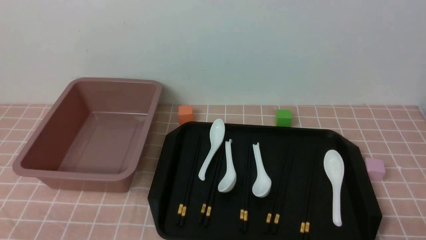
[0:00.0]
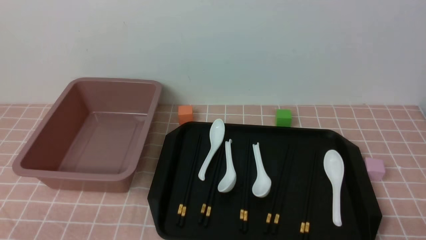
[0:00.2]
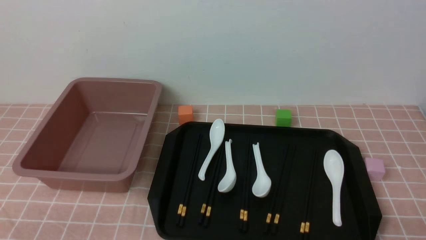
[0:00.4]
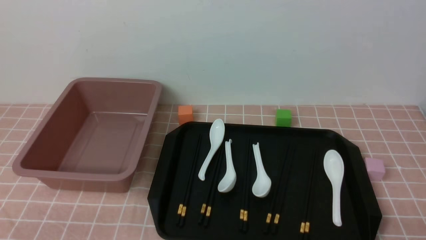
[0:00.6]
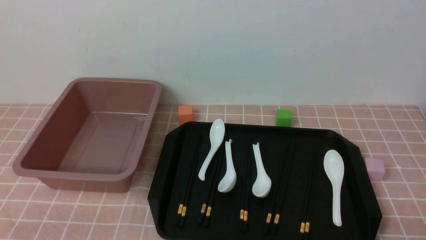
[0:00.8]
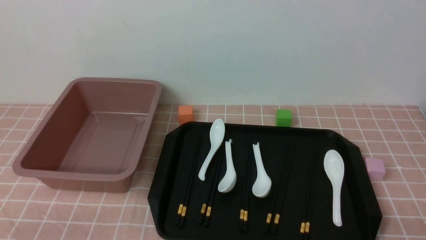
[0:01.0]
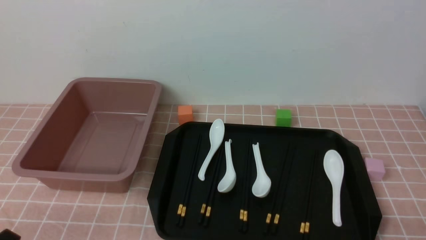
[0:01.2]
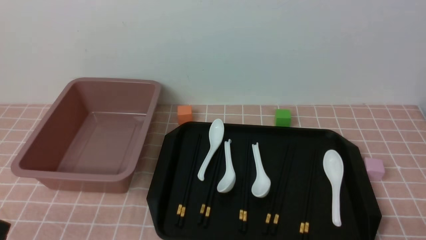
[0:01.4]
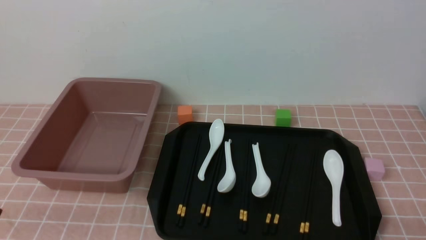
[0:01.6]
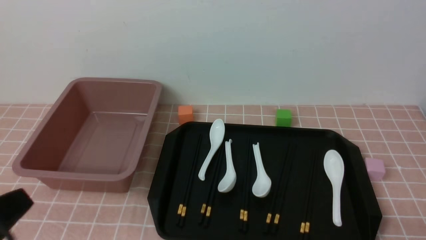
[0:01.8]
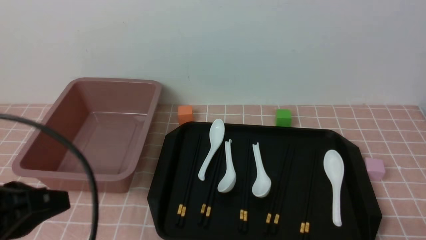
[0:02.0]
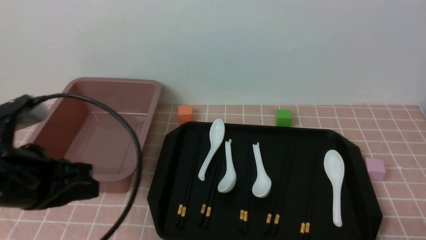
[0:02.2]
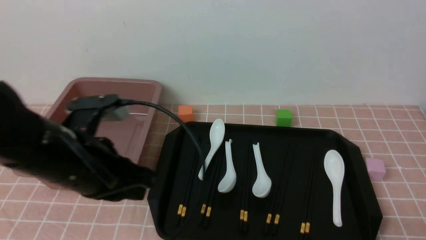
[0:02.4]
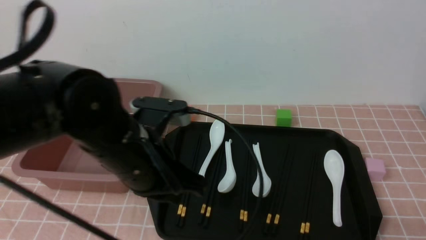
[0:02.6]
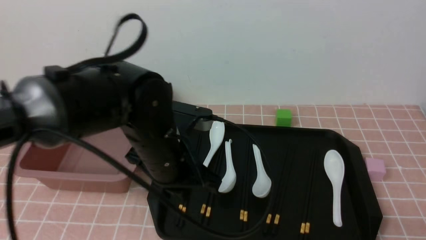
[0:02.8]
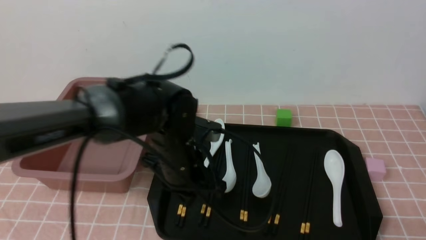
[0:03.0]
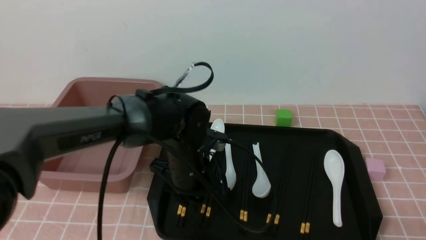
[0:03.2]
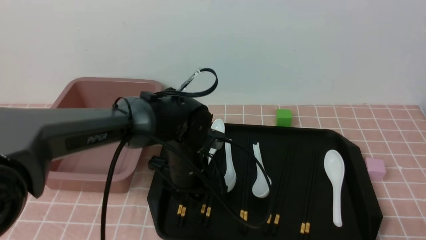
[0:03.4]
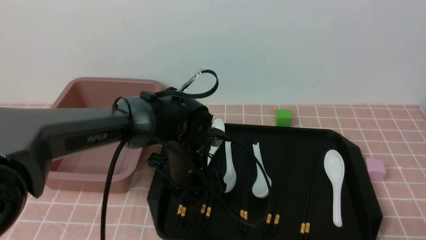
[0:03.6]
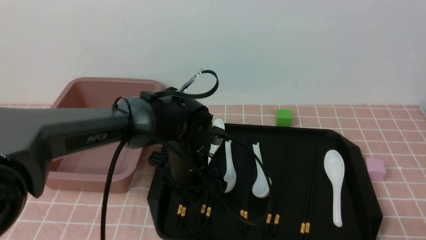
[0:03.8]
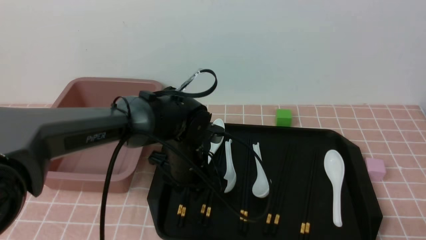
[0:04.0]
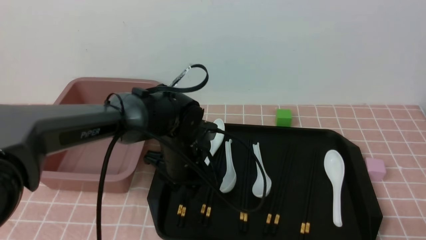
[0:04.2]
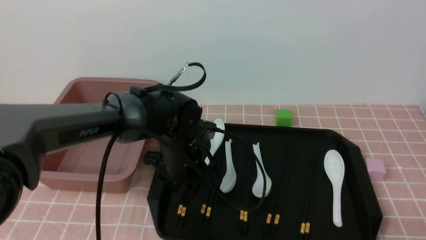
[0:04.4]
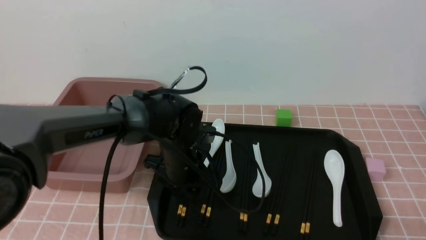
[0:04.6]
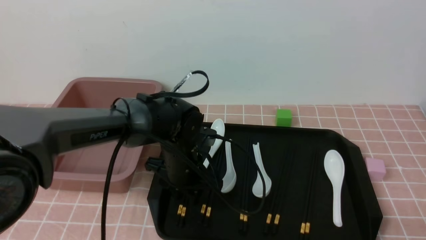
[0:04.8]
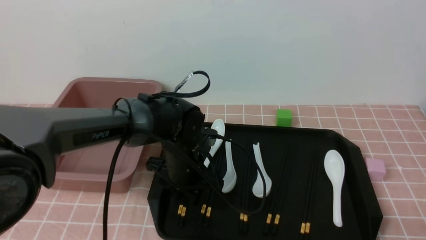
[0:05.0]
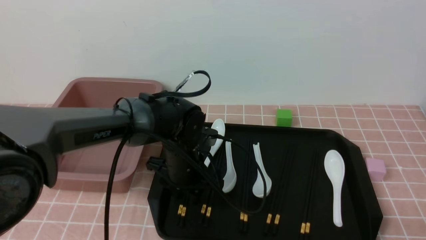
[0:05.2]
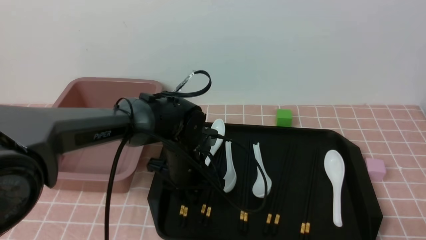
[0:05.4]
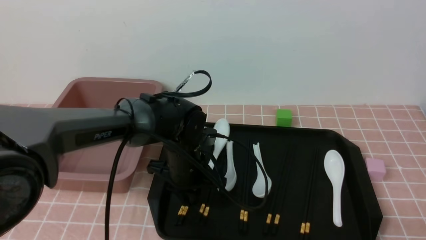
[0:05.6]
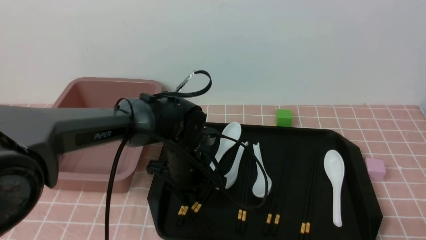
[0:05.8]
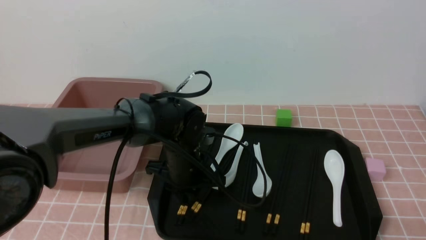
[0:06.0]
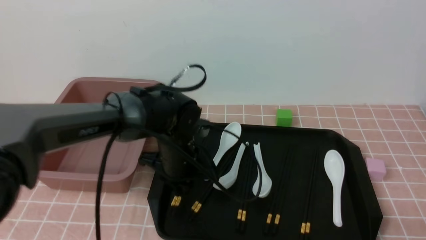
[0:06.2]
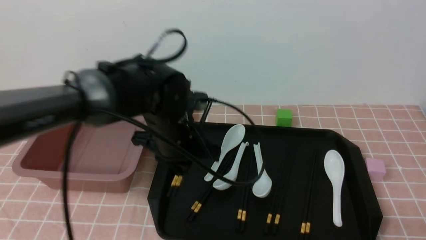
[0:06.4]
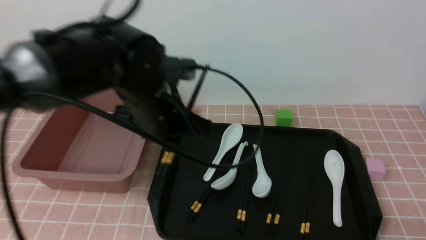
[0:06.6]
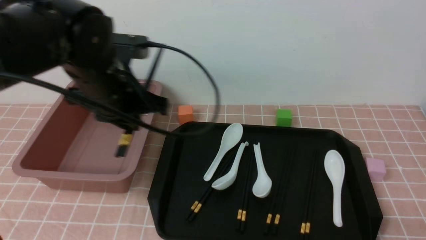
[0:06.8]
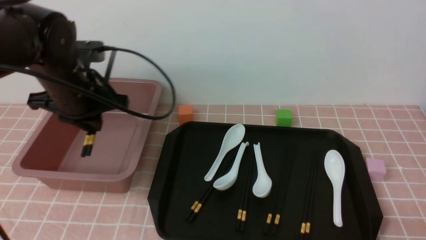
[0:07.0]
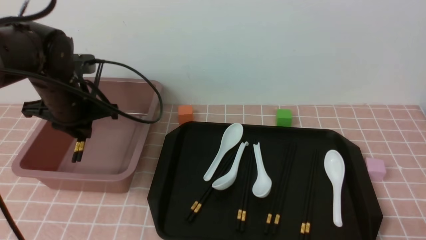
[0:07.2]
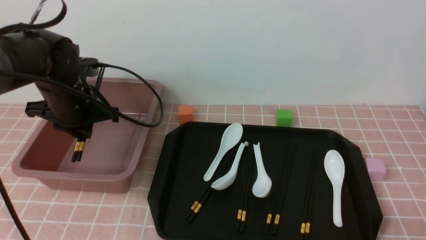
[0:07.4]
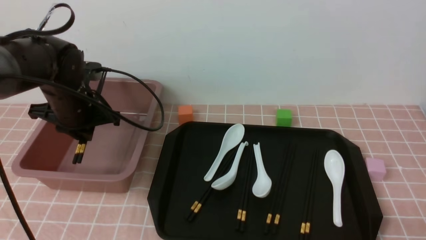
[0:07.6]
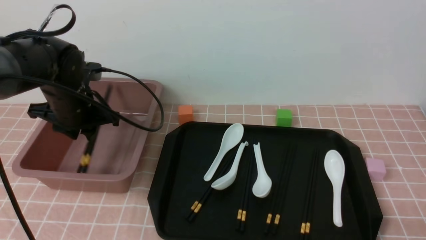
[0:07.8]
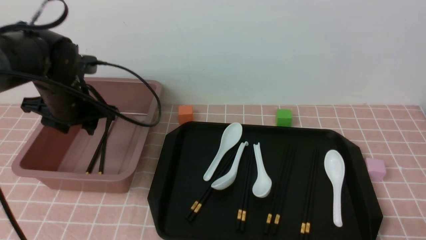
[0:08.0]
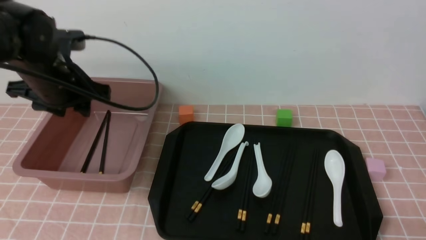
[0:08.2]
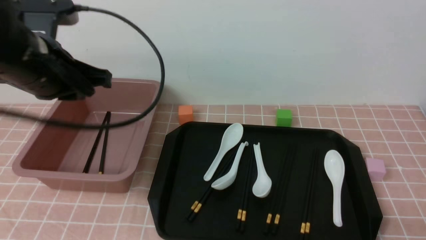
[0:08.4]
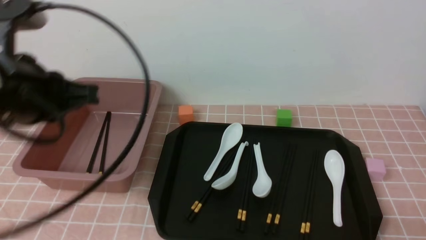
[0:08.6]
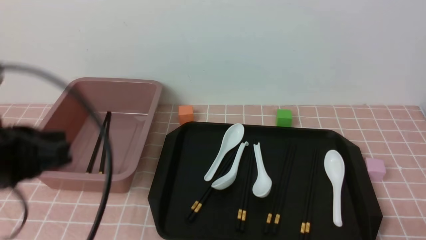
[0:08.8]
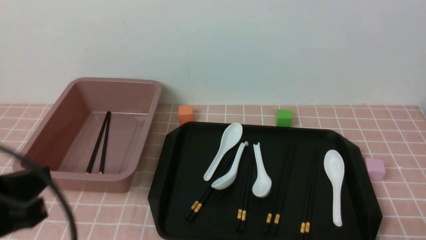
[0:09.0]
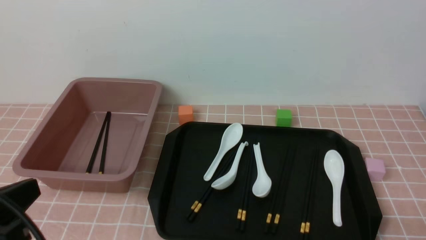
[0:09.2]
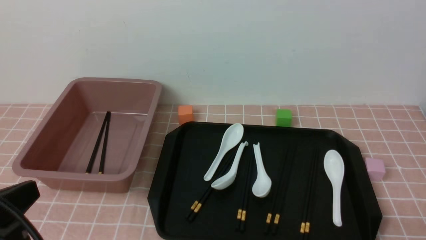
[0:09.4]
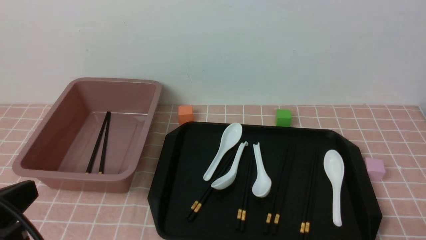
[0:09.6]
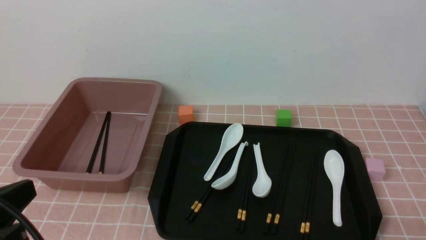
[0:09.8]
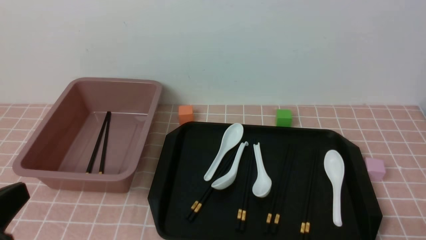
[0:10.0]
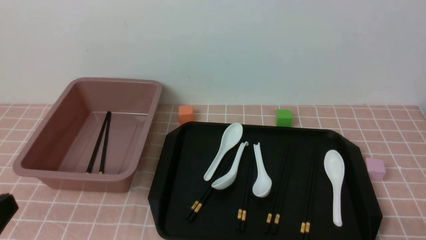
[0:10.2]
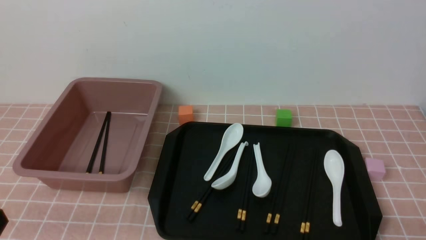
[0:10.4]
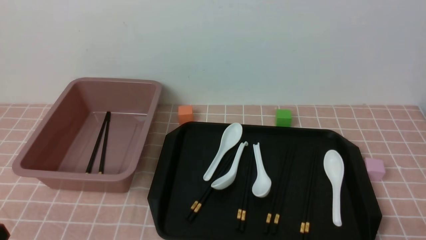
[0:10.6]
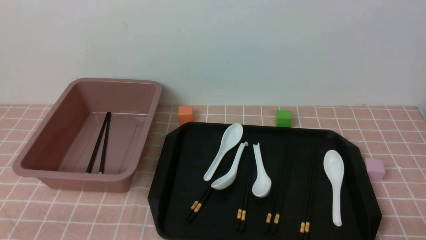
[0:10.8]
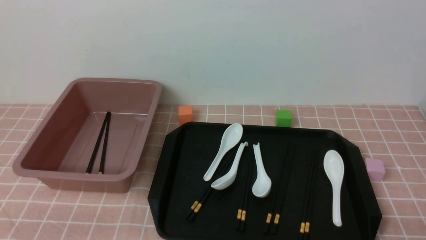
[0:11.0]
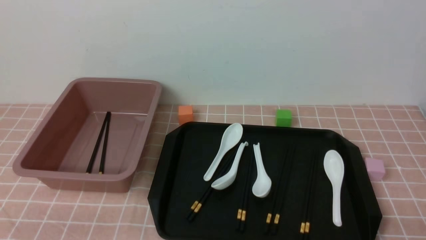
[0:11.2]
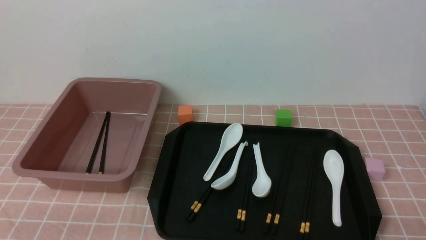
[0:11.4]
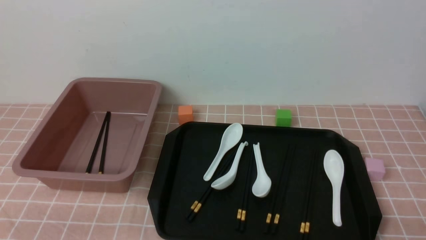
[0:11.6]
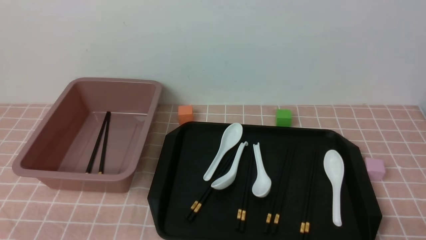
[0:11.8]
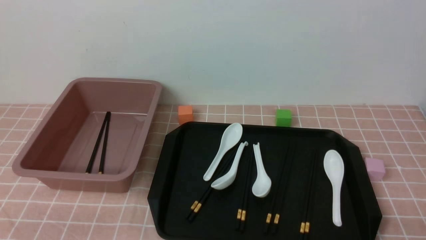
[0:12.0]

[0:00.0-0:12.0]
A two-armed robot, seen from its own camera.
Step, 0:00.0 to 0:06.4: use the left arm to grab a pair of chopsticks.
Step, 0:06.6 to 0:07.8: use the left arm to put the chopsticks into the lunch box.
0:00.0 to 0:01.6: The left gripper heads upward, covering about 10 cm, and closes its fingers.
0:01.6 to 0:03.0: The left gripper goes about 30 cm forward and to the right, and closes, then reopens.
0:03.0 to 0:04.4: The left gripper changes place by approximately 5 cm, and opens up.
0:04.4 to 0:06.0: The left gripper closes up.
0:06.0 to 0:07.6: The left gripper travels to the left and upward by roughly 20 cm.
0:07.6 to 0:09.0: The left gripper goes roughly 25 cm backward, and closes.
0:09.0 to 0:10.4: The left gripper is displaced downward and backward by approximately 10 cm.

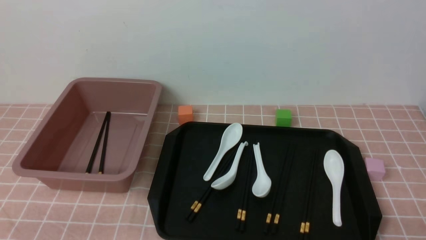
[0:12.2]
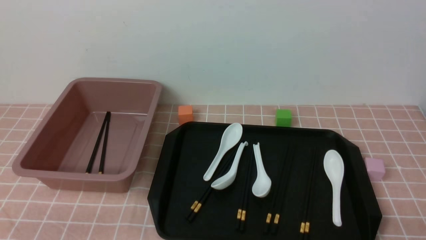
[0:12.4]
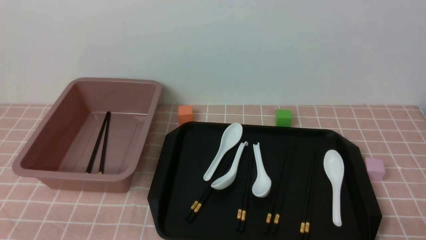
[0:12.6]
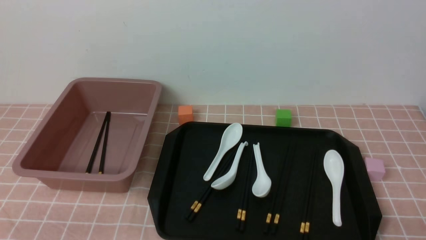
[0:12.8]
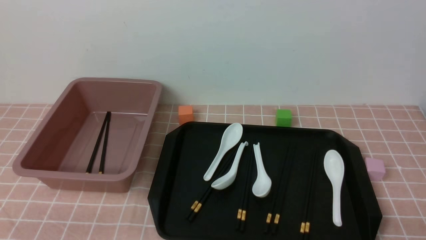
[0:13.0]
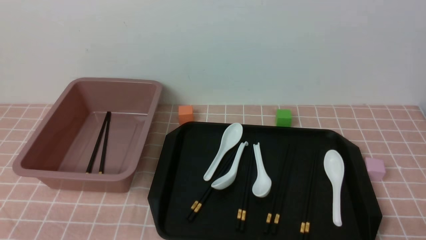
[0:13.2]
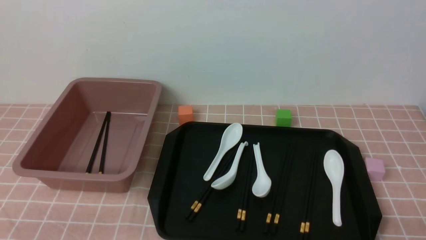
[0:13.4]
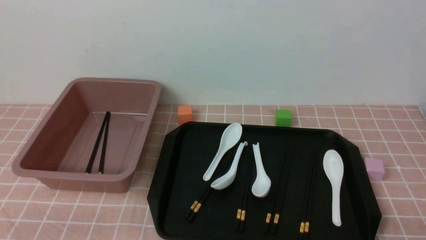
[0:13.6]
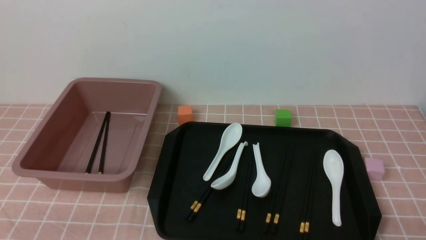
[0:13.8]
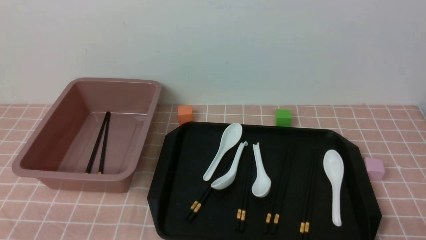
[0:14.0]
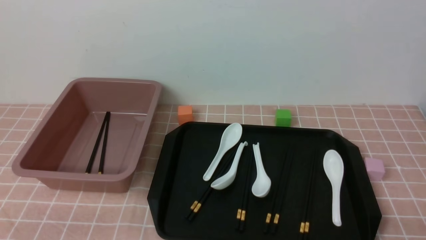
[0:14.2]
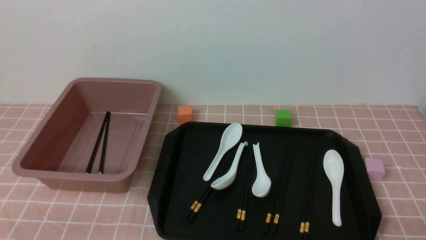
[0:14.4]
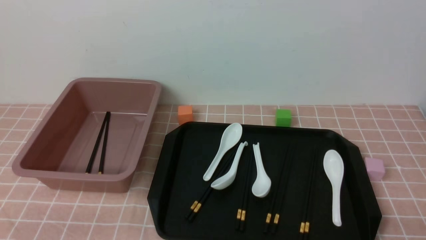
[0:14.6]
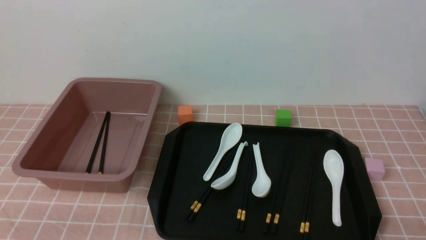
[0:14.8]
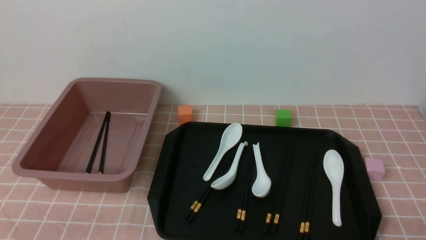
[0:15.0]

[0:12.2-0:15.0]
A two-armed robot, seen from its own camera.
0:12.2 to 0:15.0: Both grippers stay about where they are.
